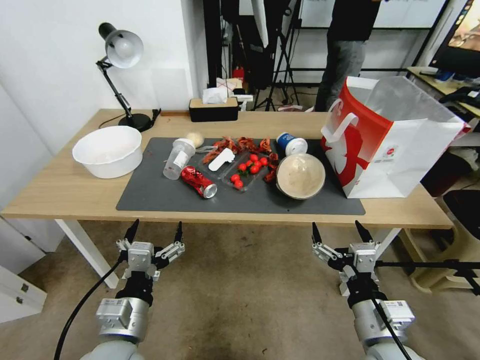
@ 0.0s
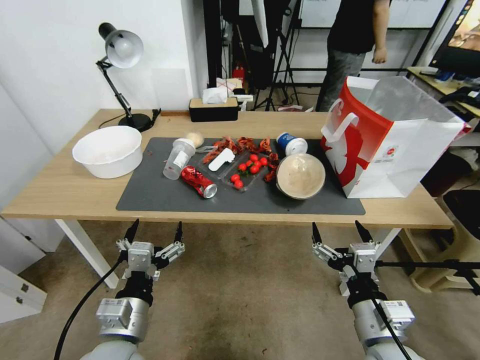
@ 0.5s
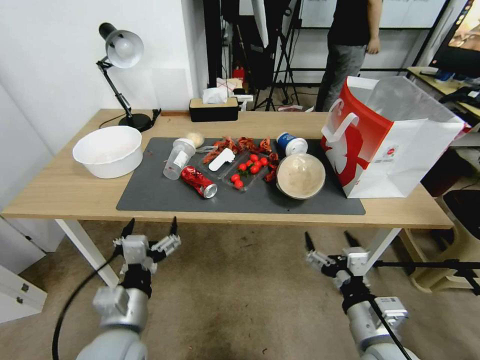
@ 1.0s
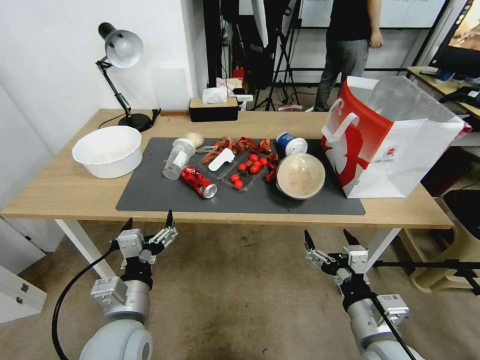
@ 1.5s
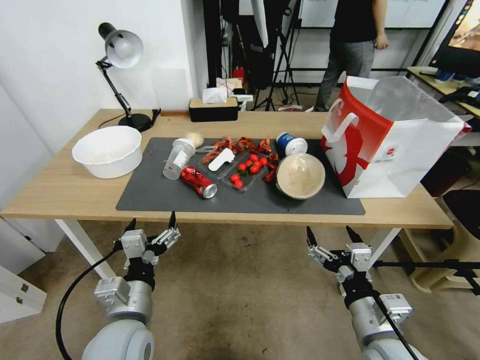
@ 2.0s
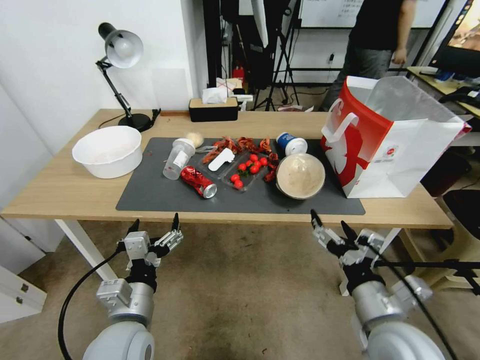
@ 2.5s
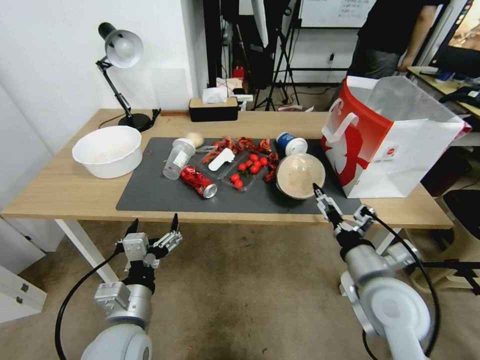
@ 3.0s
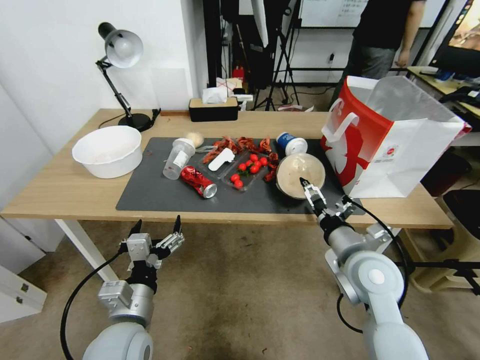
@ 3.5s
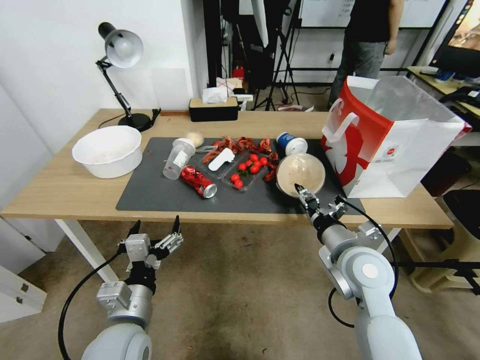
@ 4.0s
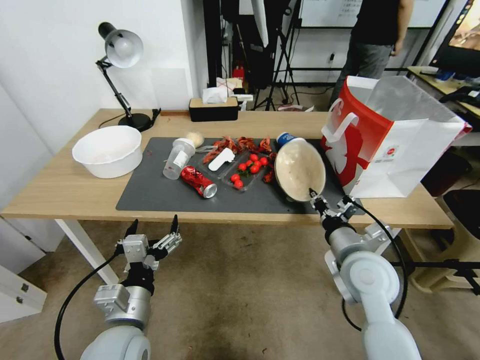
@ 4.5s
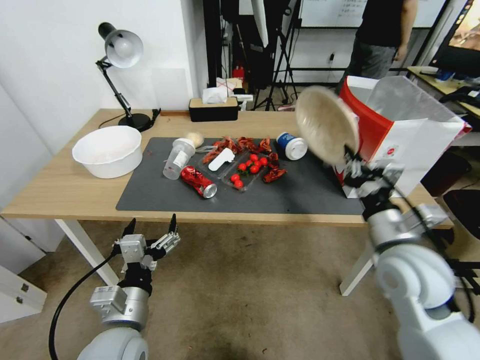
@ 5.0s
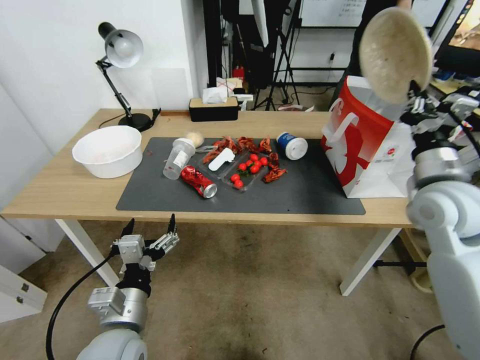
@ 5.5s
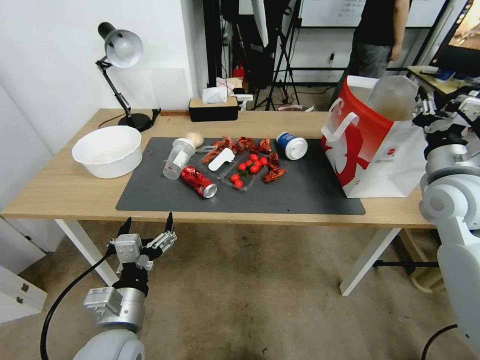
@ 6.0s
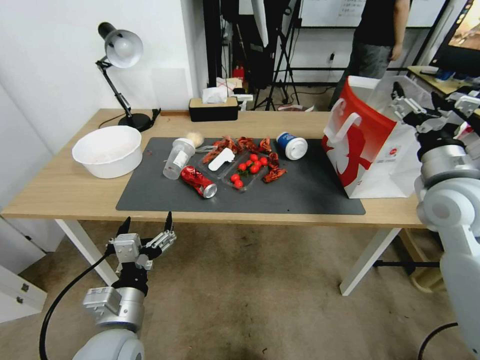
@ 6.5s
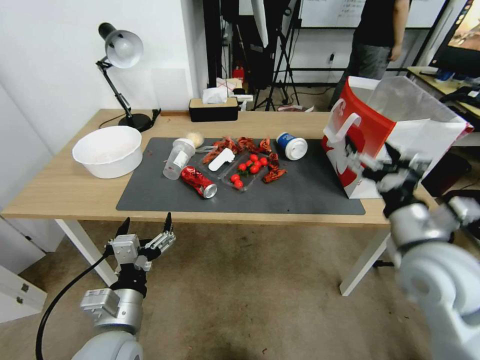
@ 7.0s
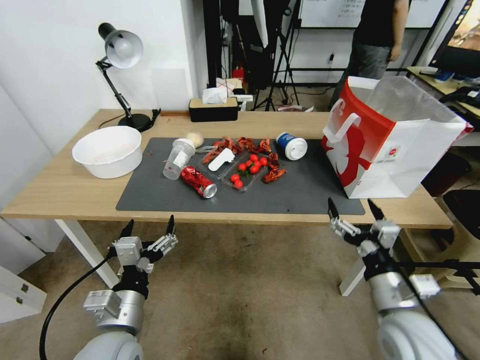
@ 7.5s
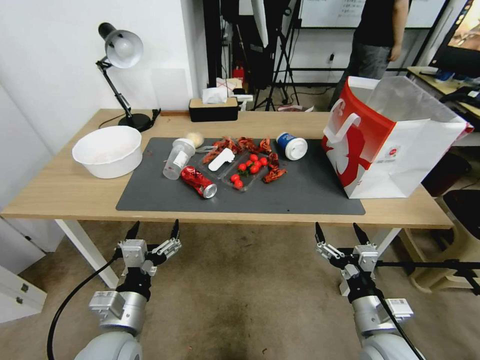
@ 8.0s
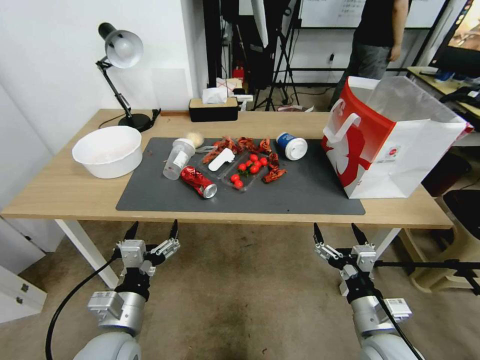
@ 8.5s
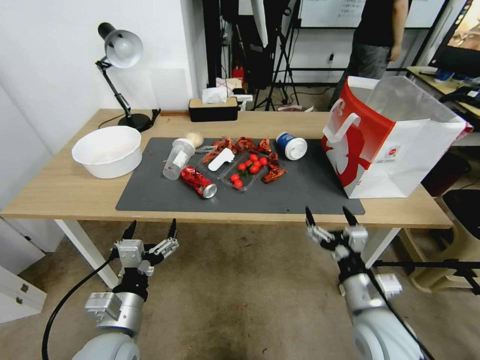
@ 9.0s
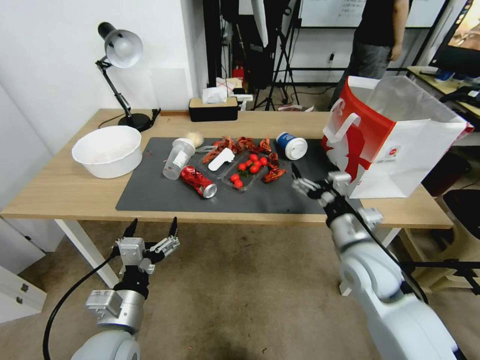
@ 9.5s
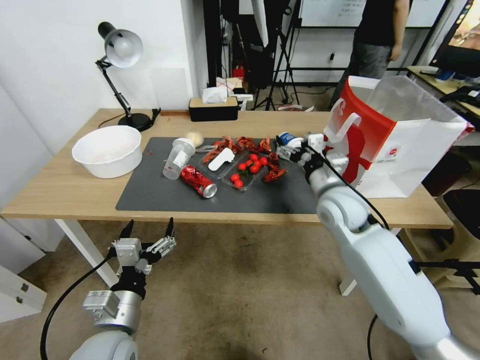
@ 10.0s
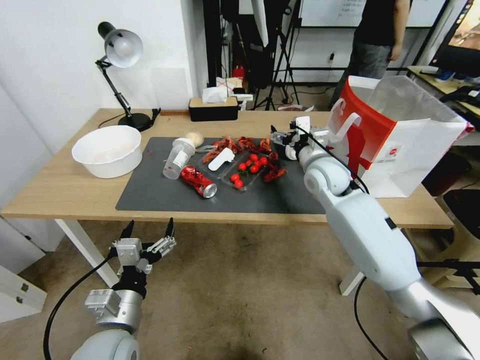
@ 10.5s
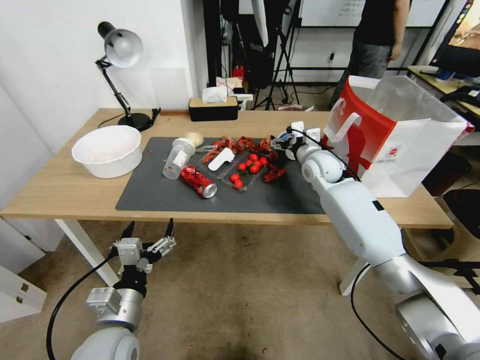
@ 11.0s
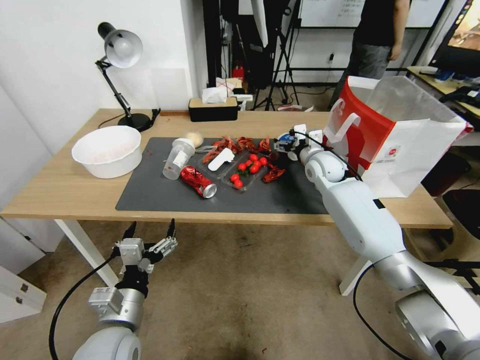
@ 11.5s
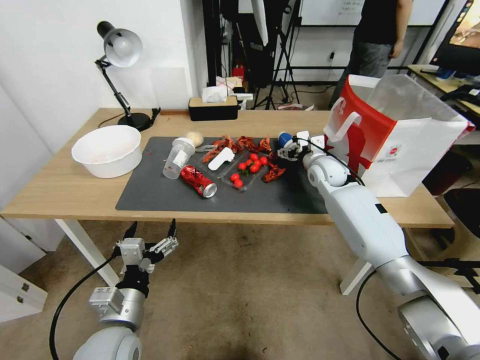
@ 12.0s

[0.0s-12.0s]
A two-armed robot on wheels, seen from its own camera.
2.0s to 4.0s: The right gripper heads forward, covering some 15 cm, and closes its fingers.
4.0s to 6.0s: The right gripper heads to the right, upward and forward, covering approximately 20 cm.
6.0s to 8.0s: The right gripper heads downward, backward and to the left, covering about 30 cm, and opens.
8.0s to 10.0s: The right gripper is displaced forward and upward by some 25 cm.
10.0s to 12.0s: The right gripper moves forward, approximately 15 cm.

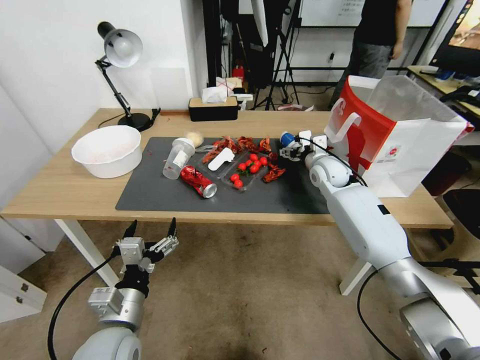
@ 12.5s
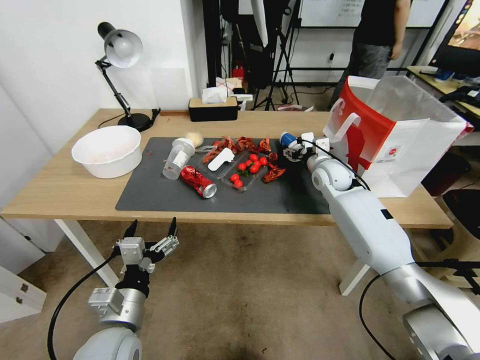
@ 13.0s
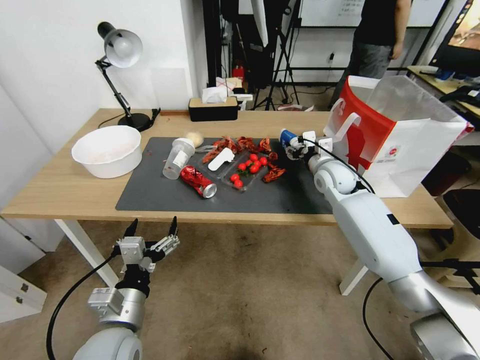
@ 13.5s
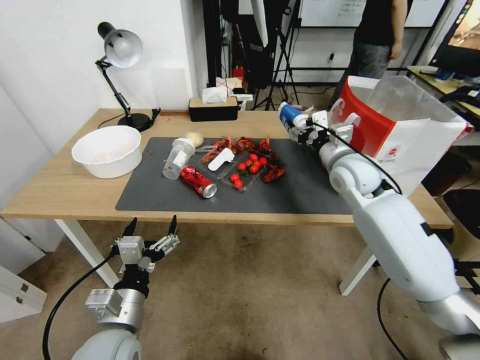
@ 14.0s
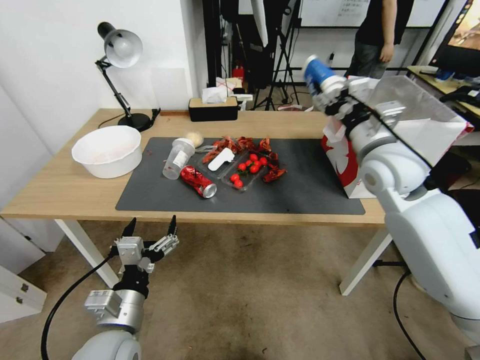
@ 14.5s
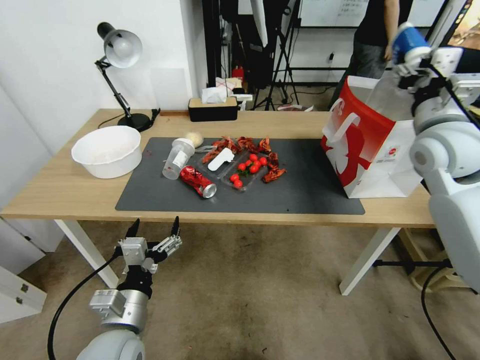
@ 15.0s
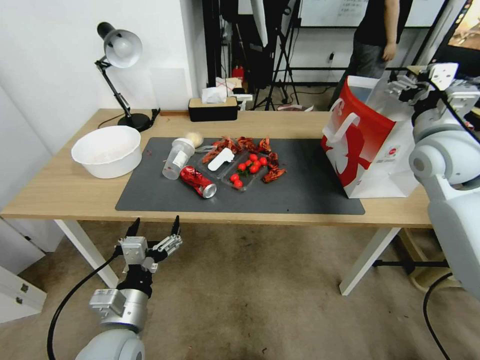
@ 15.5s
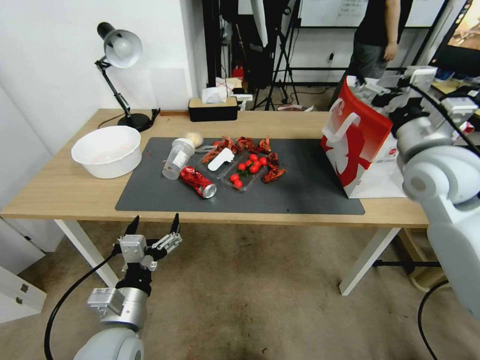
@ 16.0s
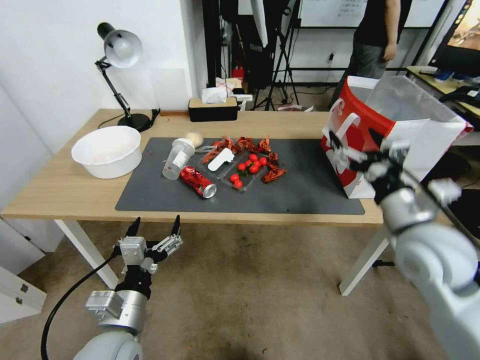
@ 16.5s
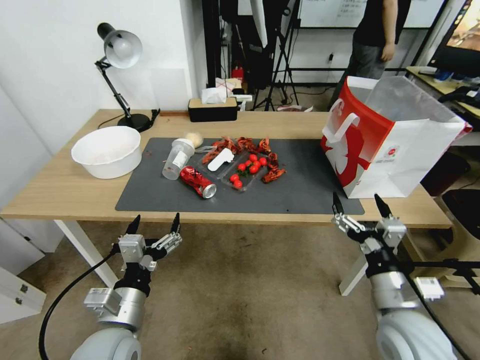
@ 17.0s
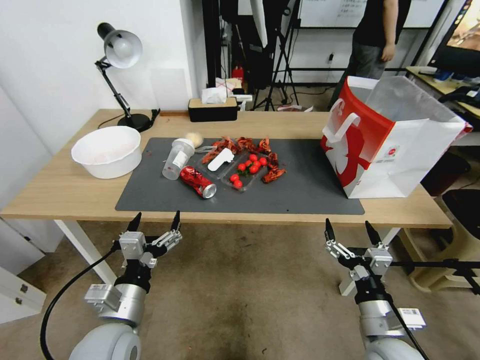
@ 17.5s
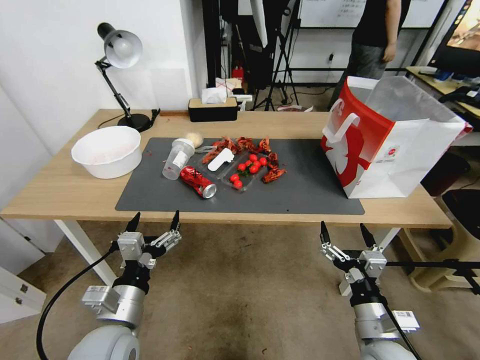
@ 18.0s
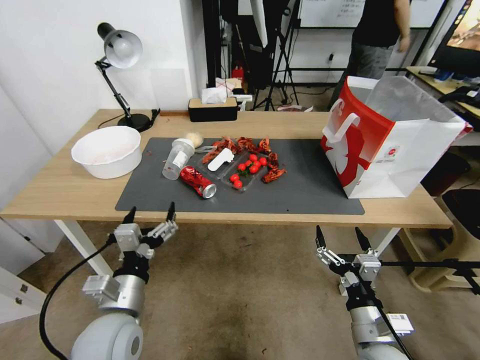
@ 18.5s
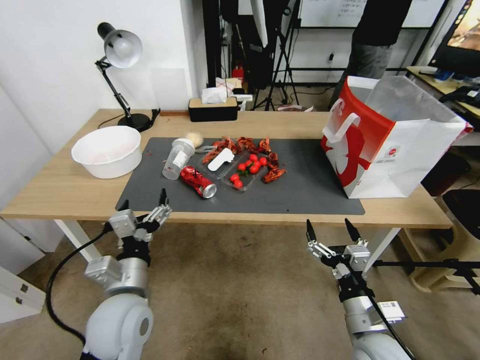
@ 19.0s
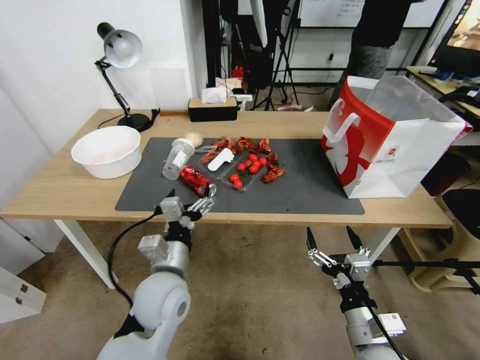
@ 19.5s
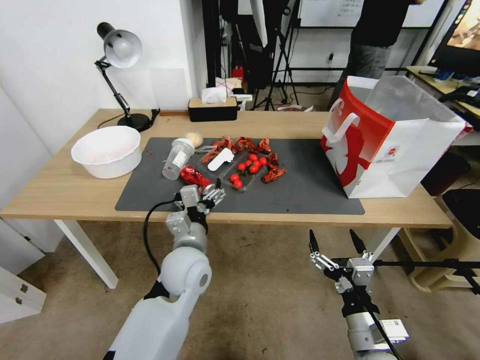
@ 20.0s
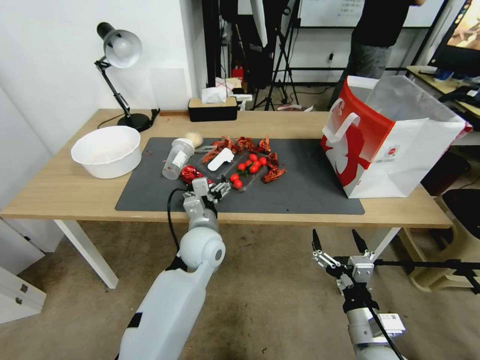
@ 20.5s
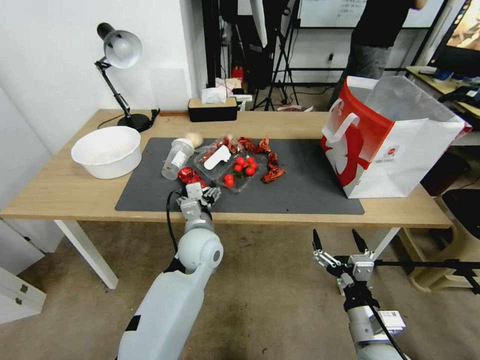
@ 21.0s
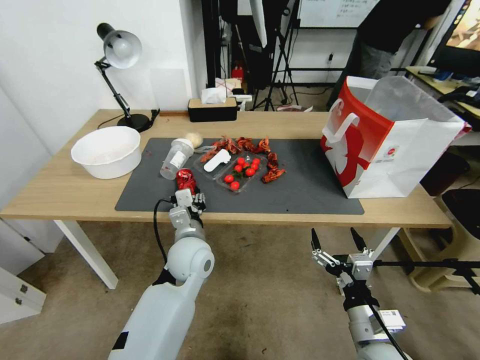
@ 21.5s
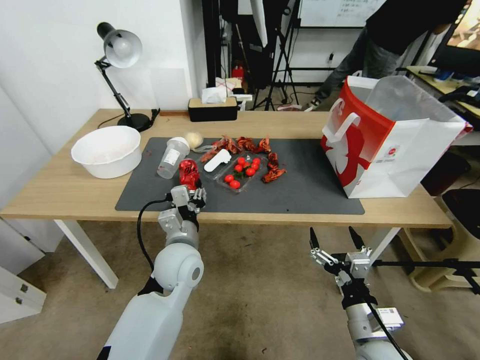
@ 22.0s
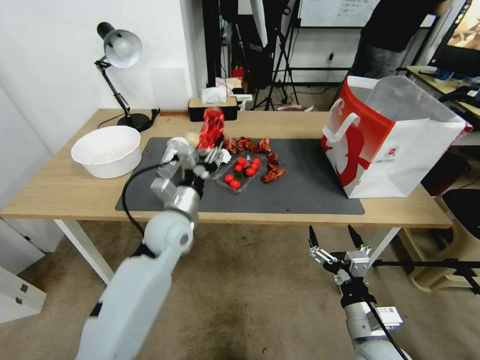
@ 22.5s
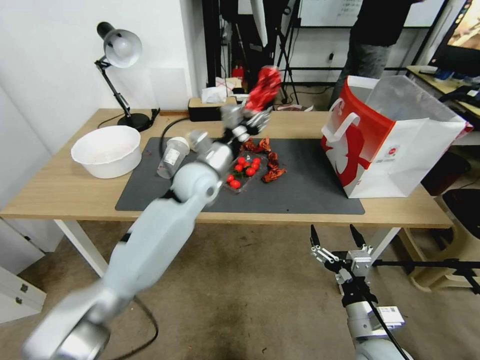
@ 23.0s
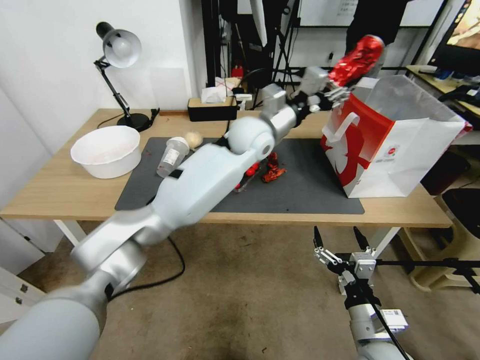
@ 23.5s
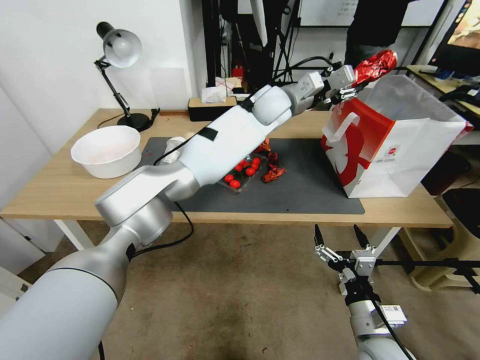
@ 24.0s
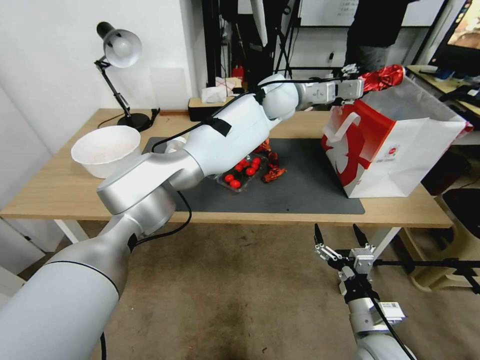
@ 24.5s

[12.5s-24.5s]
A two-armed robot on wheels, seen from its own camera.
12.5s to 14.5s: The right gripper travels upward and backward by about 20 cm, and closes up.
14.5s to 16.5s: The right gripper moves backward and downward, some 15 cm, and opens up.
16.5s to 18.5s: The right gripper goes approximately 25 cm downward and backward.
18.5s to 20.5s: The left gripper travels forward and to the right by some 20 cm.
20.5s to 22.5s: The left gripper goes approximately 5 cm to the left, and closes its fingers.
22.5s to 24.5s: The left gripper travels forward, to the right and upward by some 40 cm.

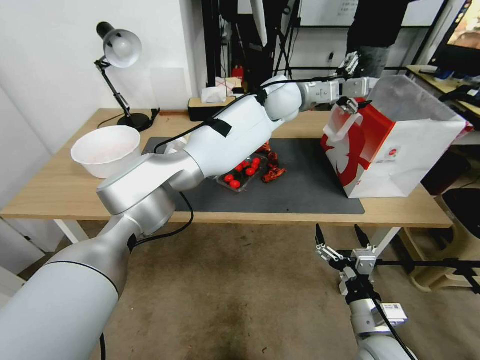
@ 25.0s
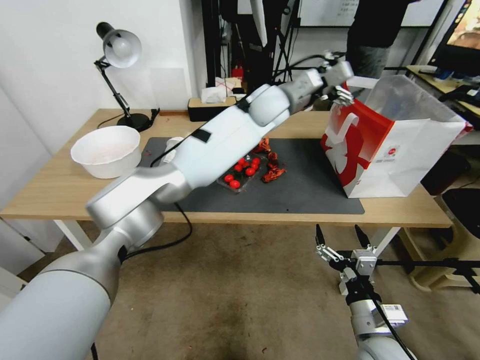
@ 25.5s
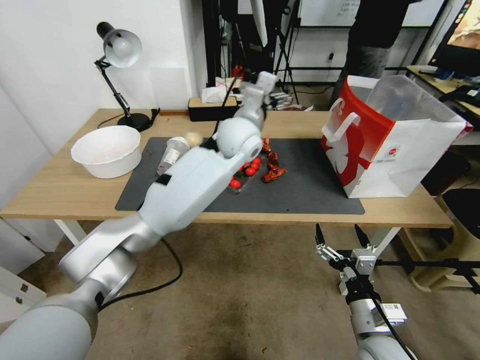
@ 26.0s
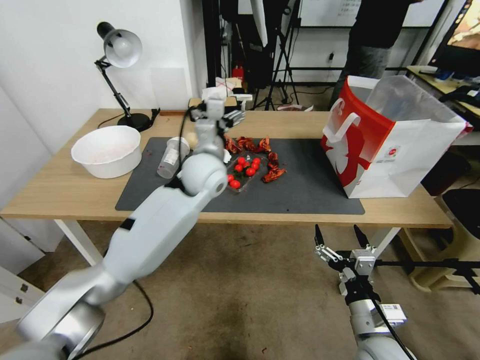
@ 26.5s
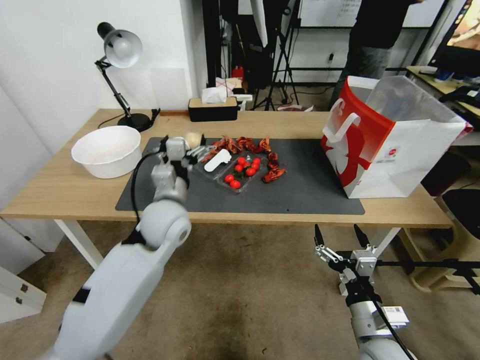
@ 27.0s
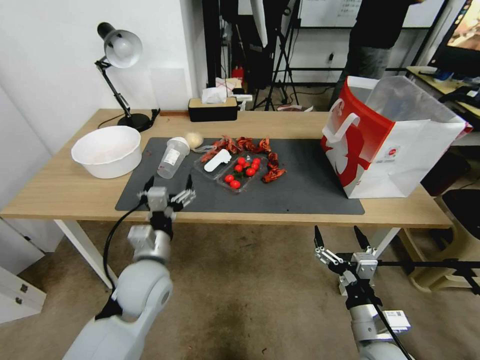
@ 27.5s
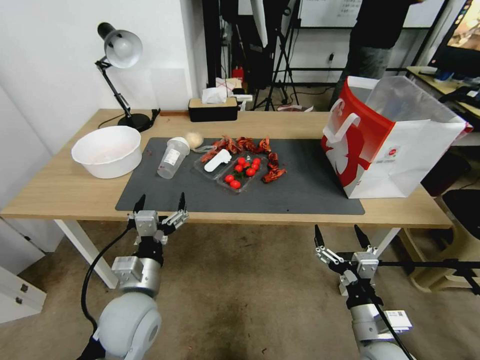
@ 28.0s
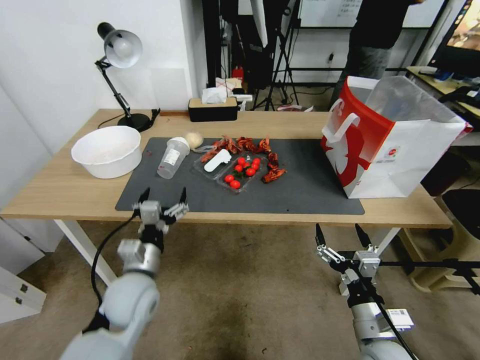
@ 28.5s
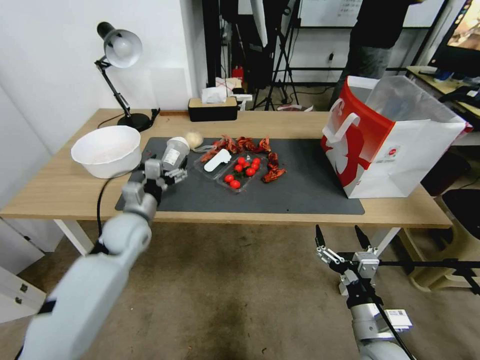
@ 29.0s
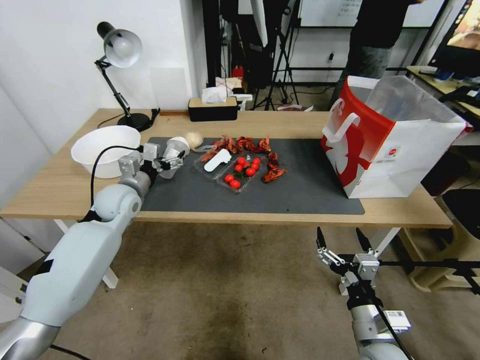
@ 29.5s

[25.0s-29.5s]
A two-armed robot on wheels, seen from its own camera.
25.0s to 27.0s: The left gripper goes about 35 cm to the left, backward and downward.
27.0s to 29.5s: The left gripper goes about 15 cm to the left, and travels backward and back again, roughly 15 cm each way.
